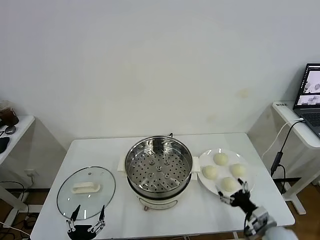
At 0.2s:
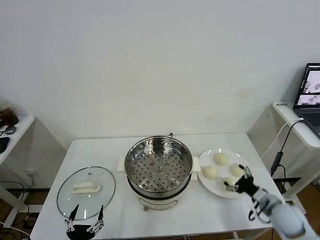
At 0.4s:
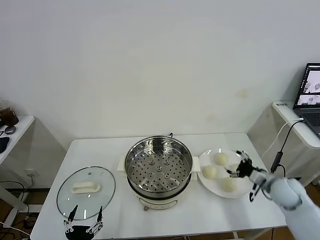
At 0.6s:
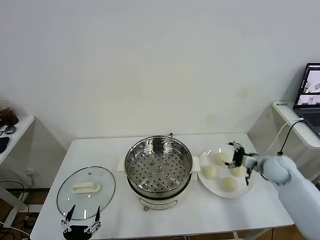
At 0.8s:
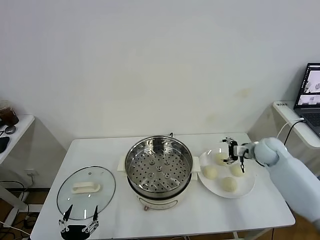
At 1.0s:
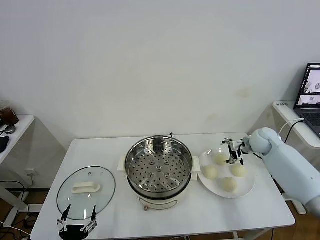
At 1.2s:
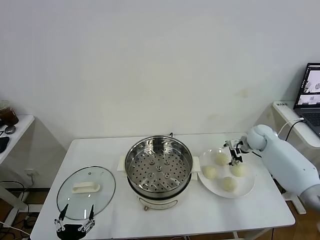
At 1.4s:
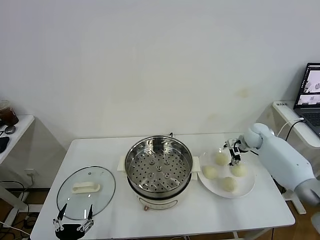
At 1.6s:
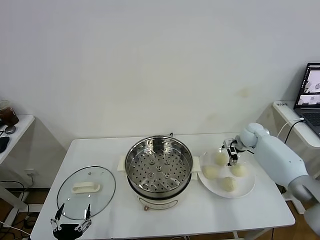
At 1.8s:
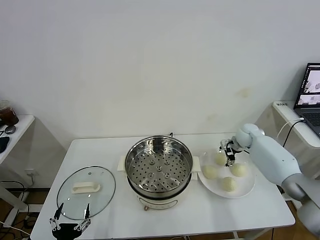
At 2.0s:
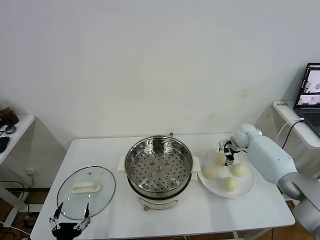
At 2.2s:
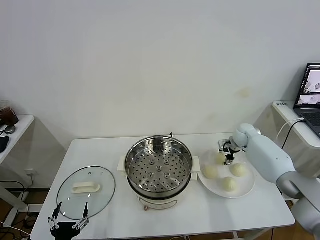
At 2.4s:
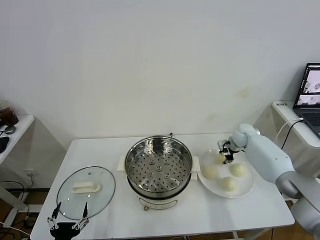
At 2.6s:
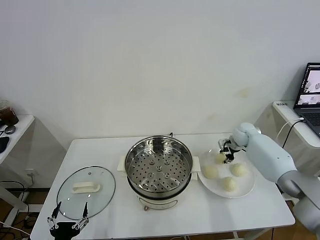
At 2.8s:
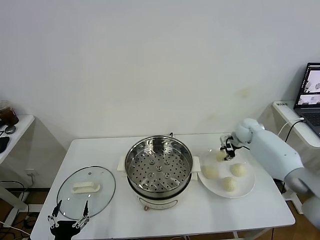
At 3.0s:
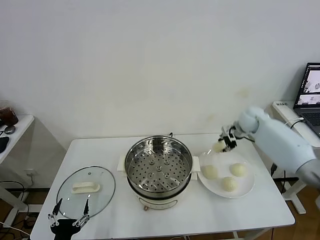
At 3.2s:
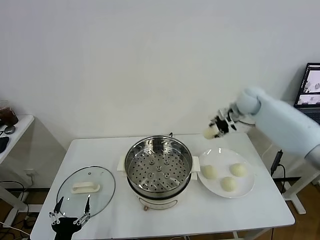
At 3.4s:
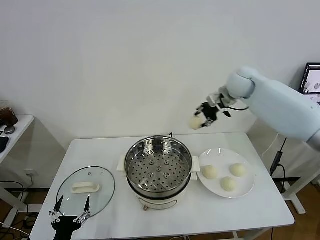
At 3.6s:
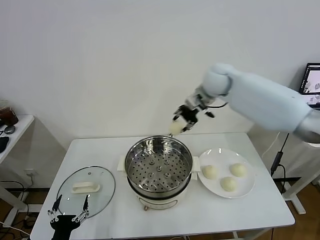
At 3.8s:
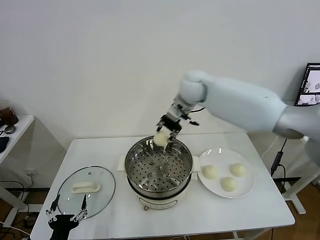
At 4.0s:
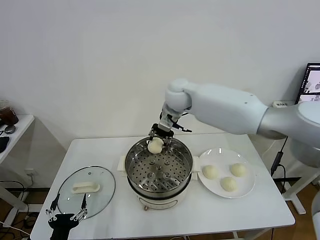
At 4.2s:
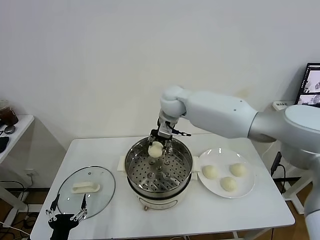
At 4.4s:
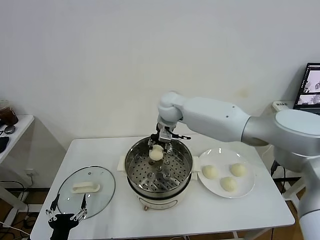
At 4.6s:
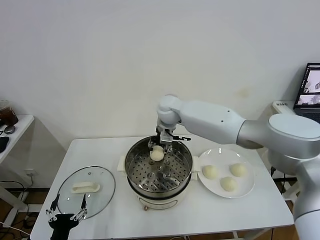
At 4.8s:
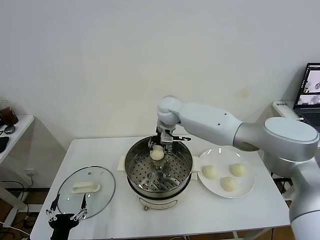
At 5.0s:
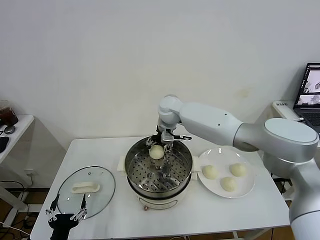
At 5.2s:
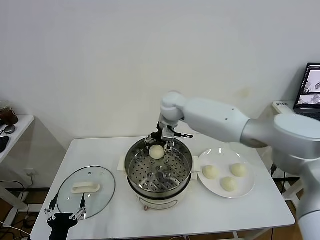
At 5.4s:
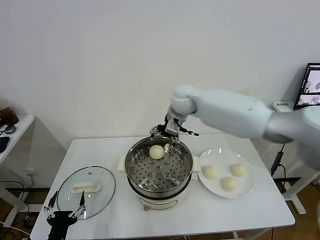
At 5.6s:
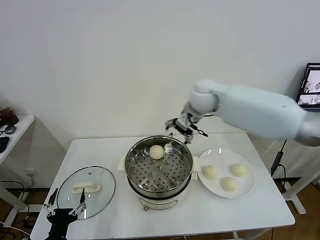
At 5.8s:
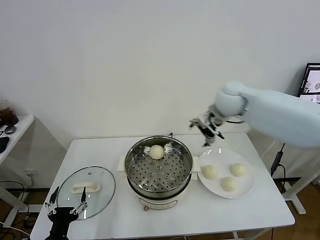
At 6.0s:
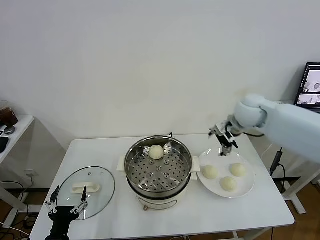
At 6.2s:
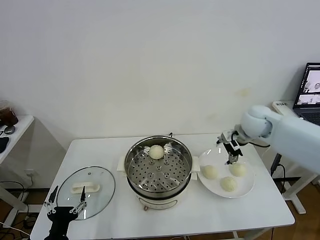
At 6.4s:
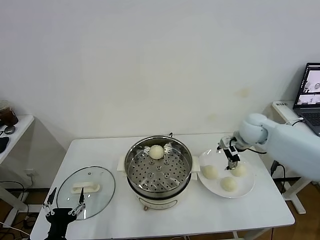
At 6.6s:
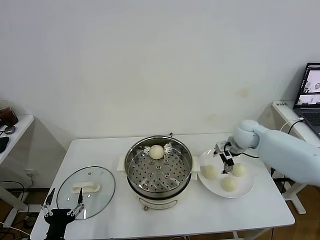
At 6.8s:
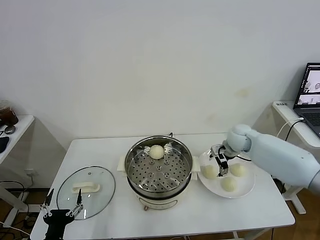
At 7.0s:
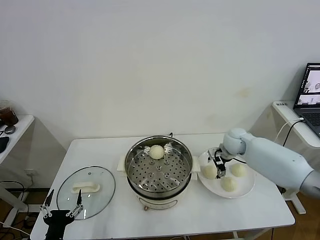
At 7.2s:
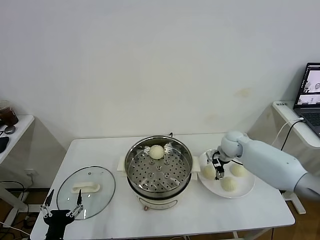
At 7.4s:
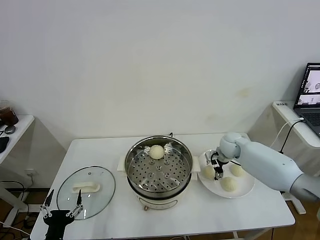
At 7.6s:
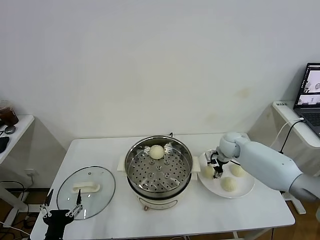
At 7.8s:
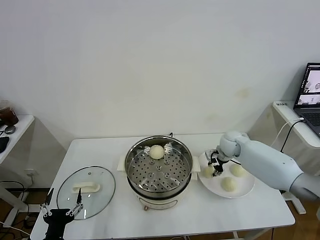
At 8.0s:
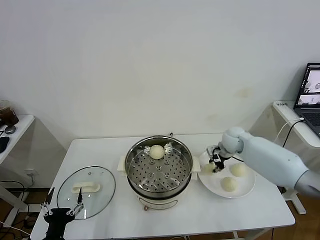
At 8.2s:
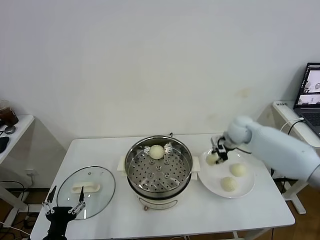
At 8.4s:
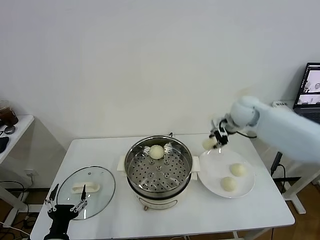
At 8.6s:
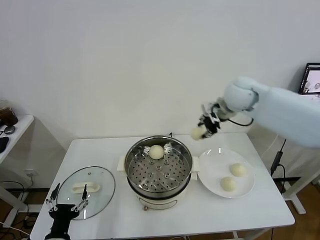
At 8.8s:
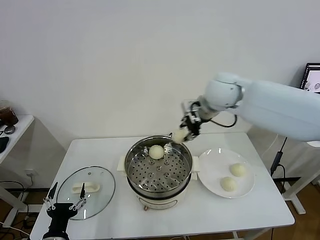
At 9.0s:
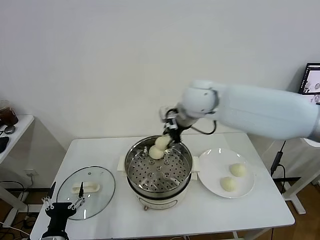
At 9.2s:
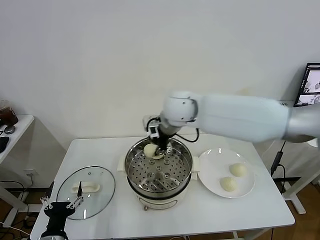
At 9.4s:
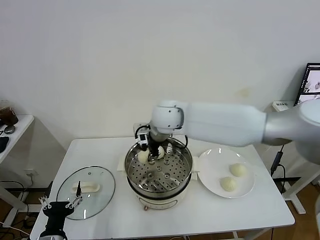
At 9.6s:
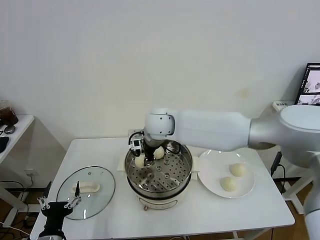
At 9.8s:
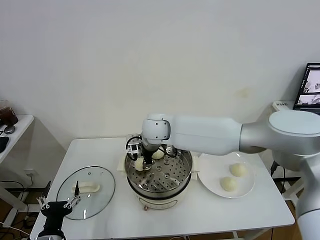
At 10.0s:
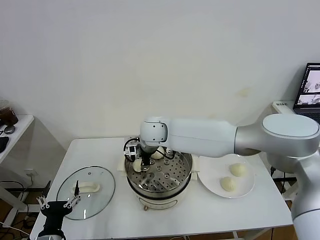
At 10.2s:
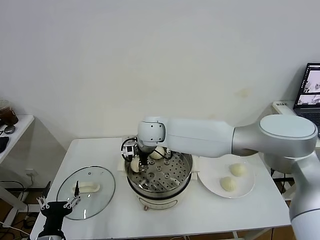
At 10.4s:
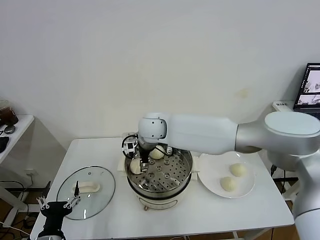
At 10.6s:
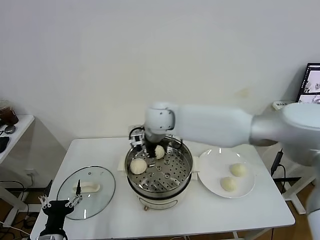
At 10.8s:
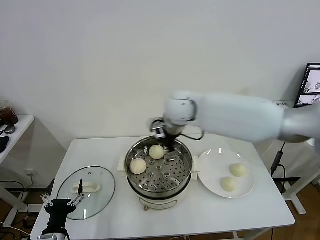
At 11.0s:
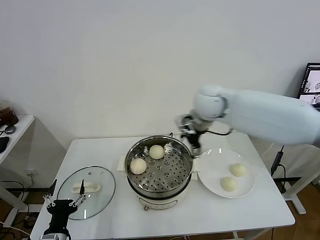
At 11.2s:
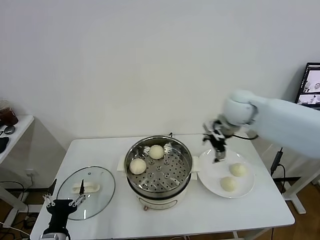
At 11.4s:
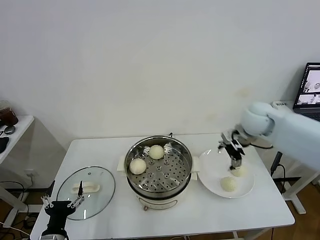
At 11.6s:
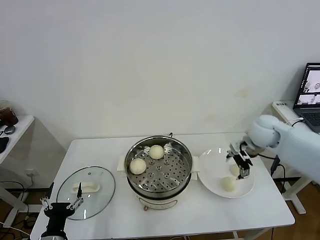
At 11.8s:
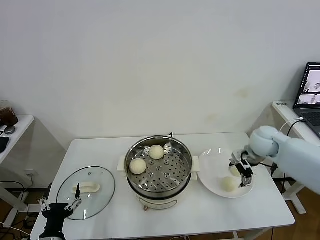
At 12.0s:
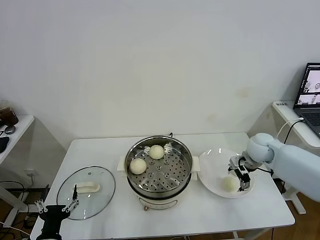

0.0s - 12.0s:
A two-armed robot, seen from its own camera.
Task of the whole recording: take steamed baozi put them in steamer.
Step, 0.0s - 2.4s: Grasp the baozi in the plate with right gripper.
Step, 2.6s - 5.2s: Place the baozi on the steamer with right gripper.
Step, 5.4s - 7.8s: Grasp the baozi in the plate with right gripper.
Step, 8.0s - 10.4s: Place the baozi on the steamer with right gripper.
1.6s - 3.0s: The right gripper travels upward by some 15 cm, and closes up.
3.0s - 4.4s: The right gripper goes some 30 cm to the left.
4.4s - 6.0s: The right gripper goes some 25 cm to the right, and opens its fingers.
6.0s - 7.6s: The right gripper heads downward, covering about 15 cm, and closes.
7.6s - 9.0s: The right gripper shifts about 30 cm upward and to the left.
9.0s - 10.4s: The right gripper heads to the left and downward, covering some 15 cm, and opens up.
10.4s - 12.0s: The right gripper shifts some 35 cm to the right.

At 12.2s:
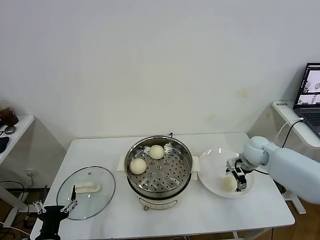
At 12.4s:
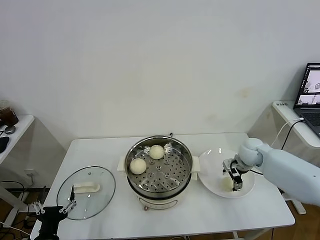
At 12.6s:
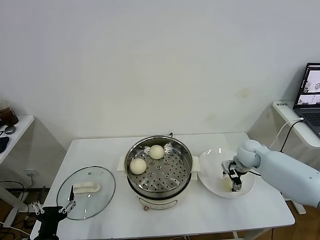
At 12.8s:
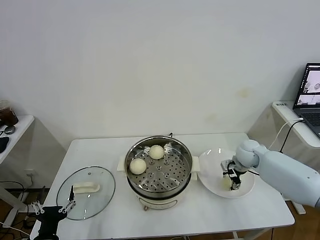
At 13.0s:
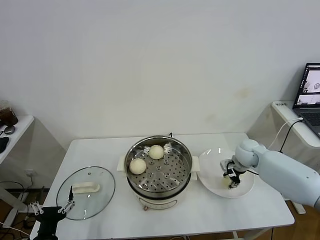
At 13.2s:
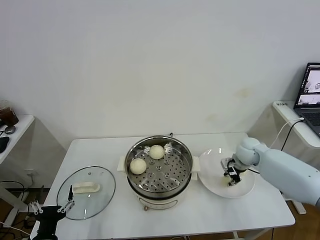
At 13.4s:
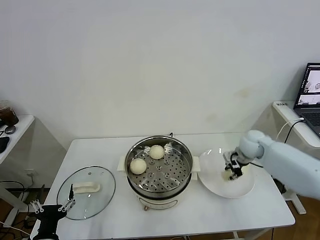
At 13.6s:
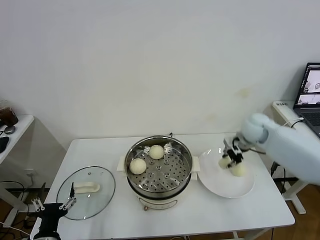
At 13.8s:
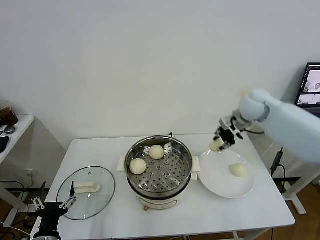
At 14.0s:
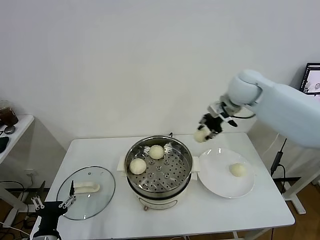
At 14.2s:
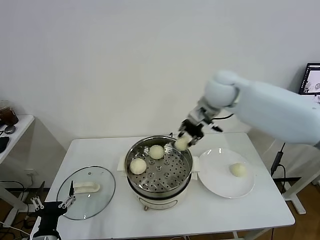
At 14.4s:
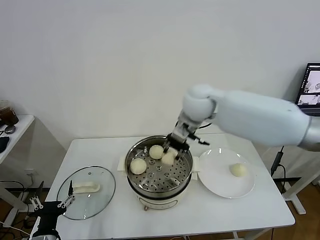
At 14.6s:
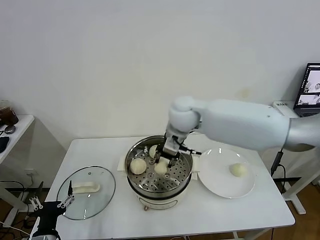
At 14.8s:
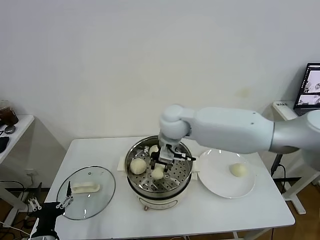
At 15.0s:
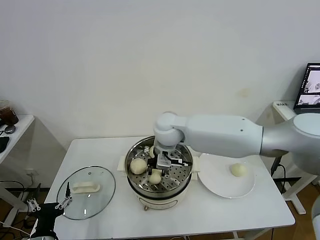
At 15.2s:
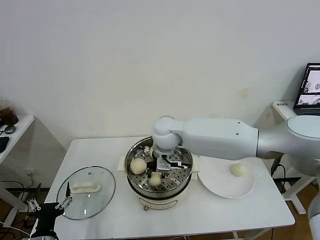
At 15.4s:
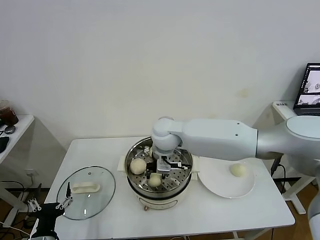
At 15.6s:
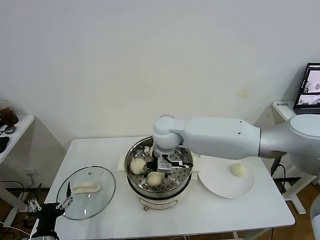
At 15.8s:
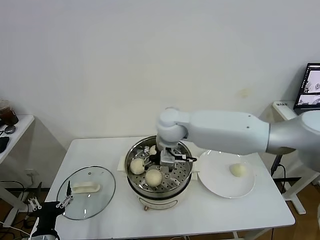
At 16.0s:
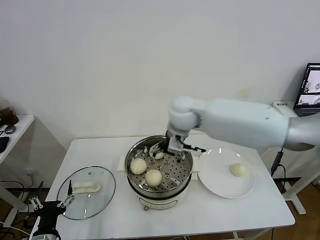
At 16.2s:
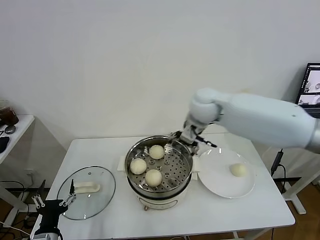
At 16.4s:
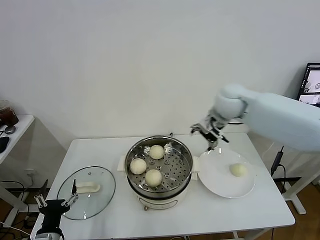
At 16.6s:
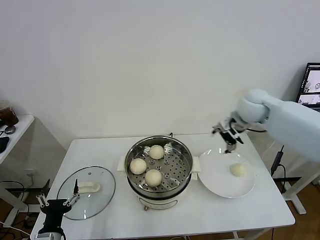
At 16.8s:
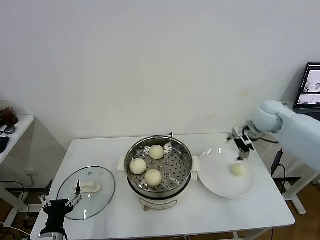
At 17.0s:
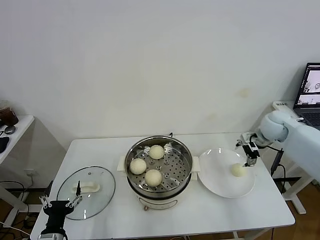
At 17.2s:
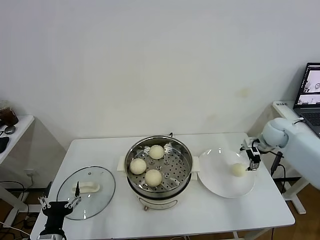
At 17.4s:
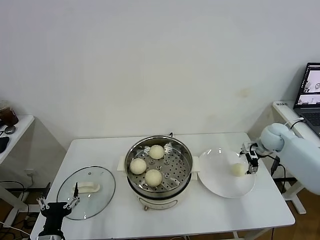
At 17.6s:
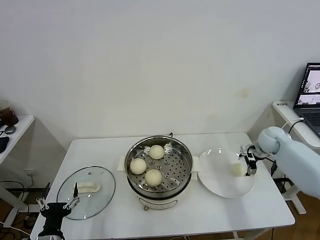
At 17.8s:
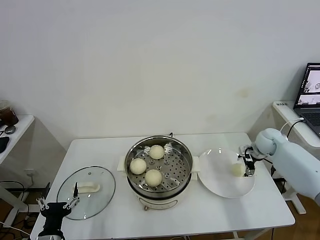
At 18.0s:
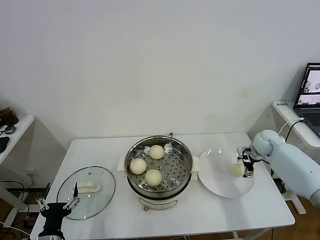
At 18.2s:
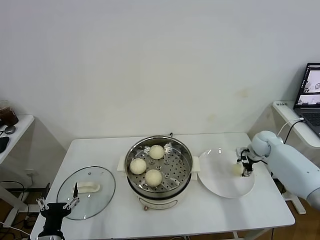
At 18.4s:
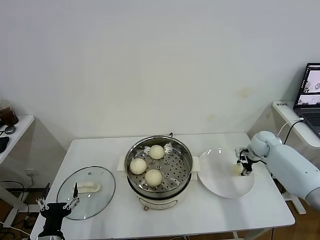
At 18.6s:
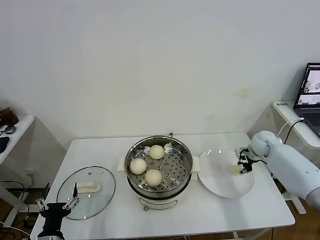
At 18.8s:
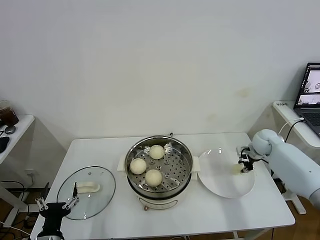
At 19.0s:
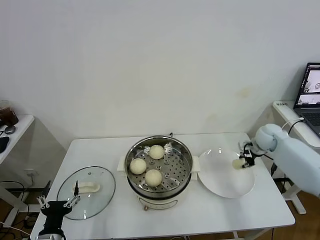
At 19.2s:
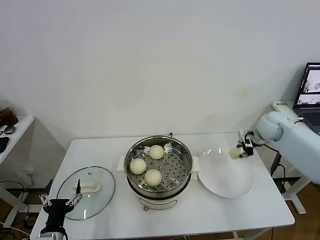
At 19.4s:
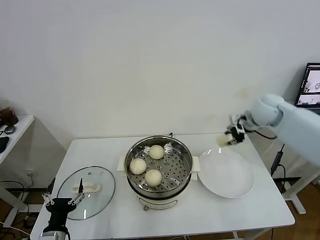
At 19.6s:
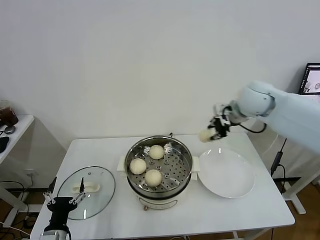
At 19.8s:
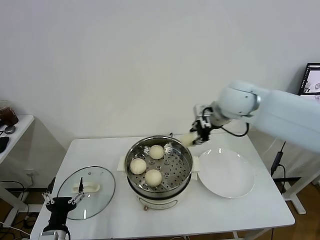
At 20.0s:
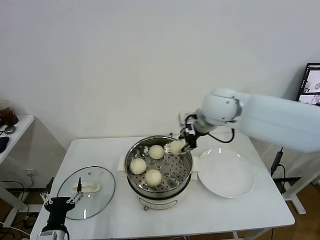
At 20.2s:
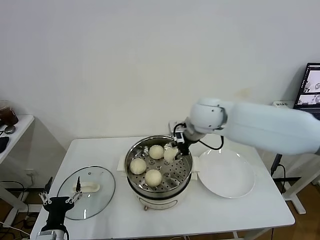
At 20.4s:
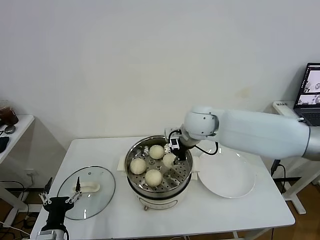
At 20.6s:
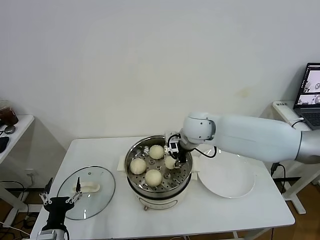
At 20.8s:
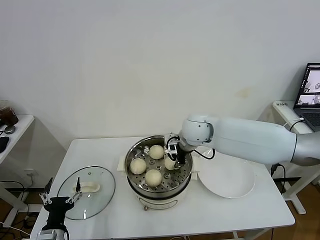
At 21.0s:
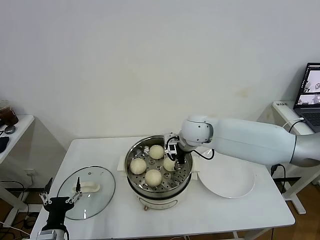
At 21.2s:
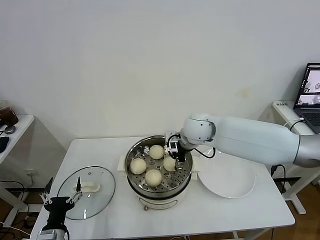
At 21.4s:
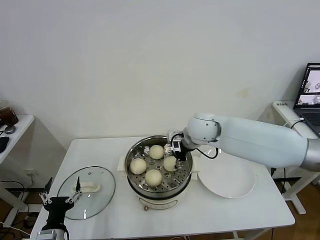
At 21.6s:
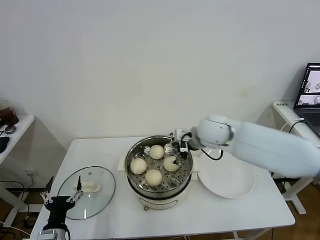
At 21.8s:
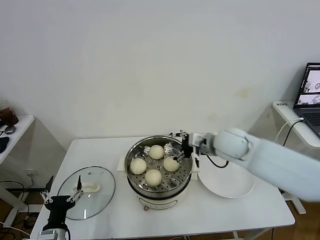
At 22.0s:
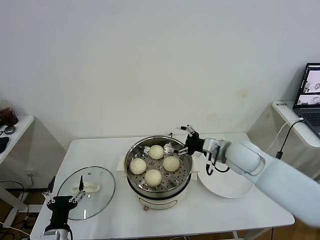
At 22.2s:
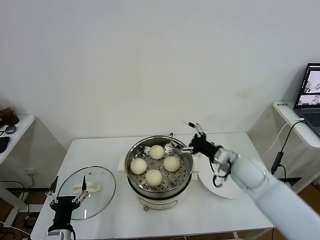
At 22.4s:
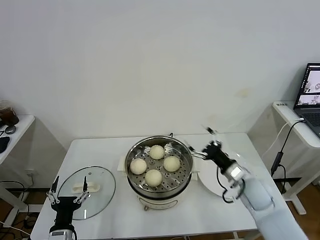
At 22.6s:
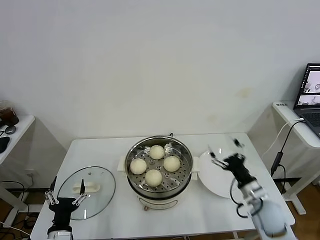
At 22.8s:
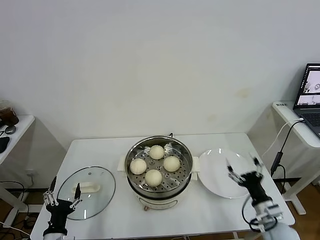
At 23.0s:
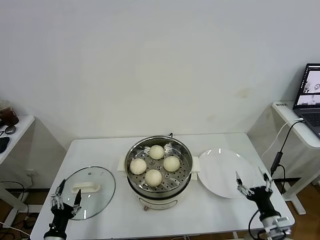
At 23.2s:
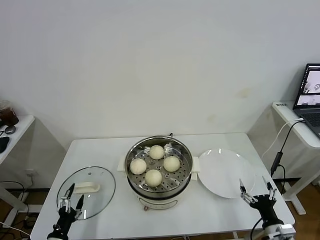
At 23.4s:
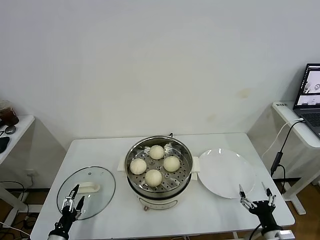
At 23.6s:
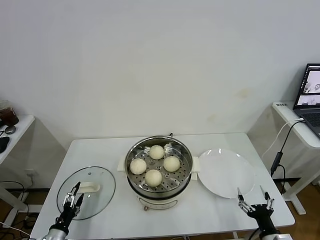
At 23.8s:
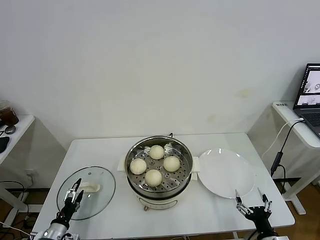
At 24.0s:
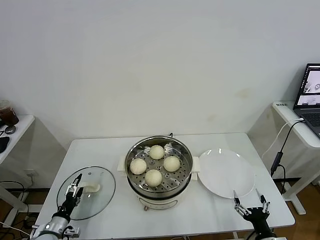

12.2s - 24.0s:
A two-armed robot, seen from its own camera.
Task of the whole recording: take steamed baozi put them in steamer.
Step, 13.4s - 15.8s: Place the baozi on the steamer with right gripper.
Step, 16.0s - 18.8s: Grasp the baozi in the plate with right gripper.
Step, 19.0s - 21.2s: Place the baozi on the steamer with right gripper.
12.2s - 13.6s: The right gripper travels upward by approximately 10 cm, and closes up.
13.6s - 15.2s: The right gripper goes approximately 30 cm to the left.
15.2s - 16.6s: The right gripper heads to the right, covering roughly 30 cm, and opens.
16.6s - 18.2s: The right gripper is displaced downward and to the right by approximately 20 cm, and closes.
18.2s - 19.6s: The right gripper is displaced upward and to the left by some 30 cm, and closes.
19.6s - 21.0s: The right gripper moves to the left and downward, roughly 20 cm, and opens.
21.0s - 22.6s: The right gripper heads to the right, backward and downward, covering roughly 35 cm, and opens its fingers.
22.6s - 24.0s: The left gripper goes approximately 15 cm to the left, downward and forward. The right gripper travels backward and downward by roughly 15 cm.
